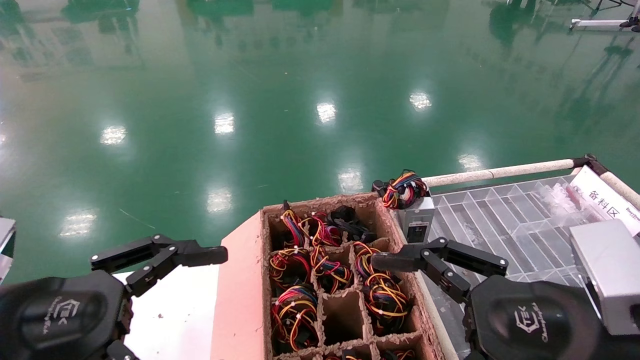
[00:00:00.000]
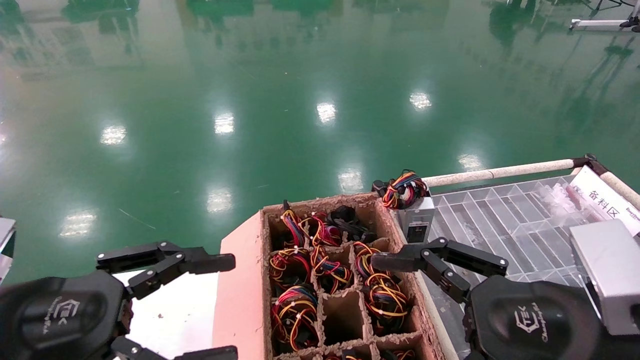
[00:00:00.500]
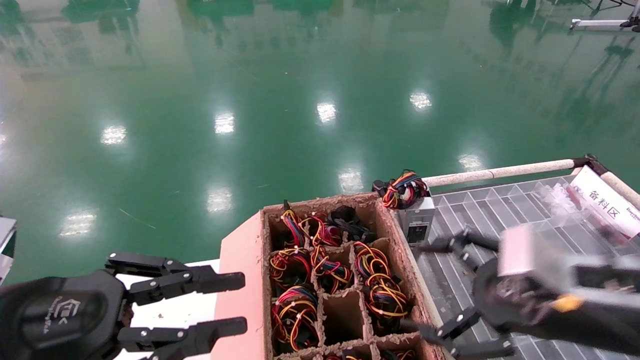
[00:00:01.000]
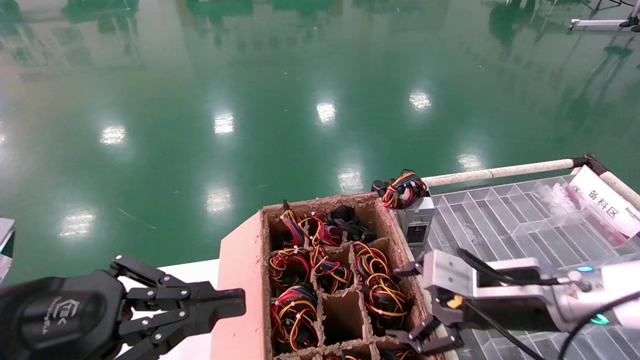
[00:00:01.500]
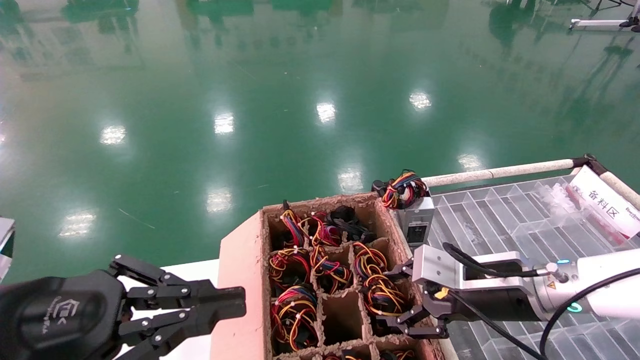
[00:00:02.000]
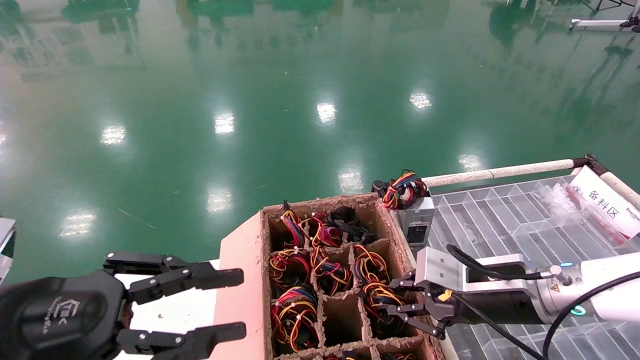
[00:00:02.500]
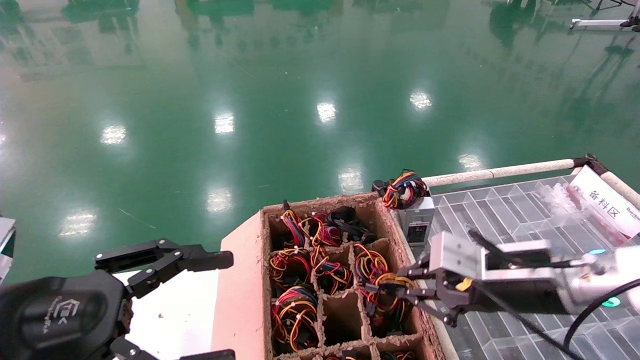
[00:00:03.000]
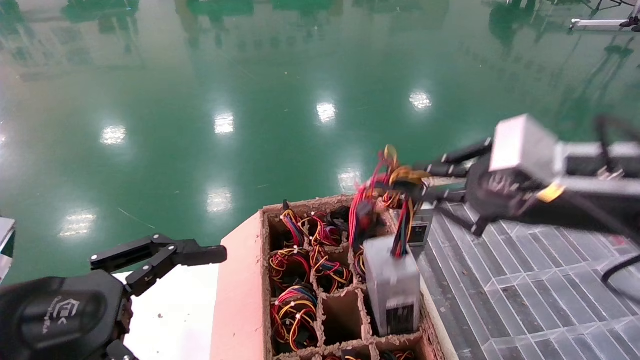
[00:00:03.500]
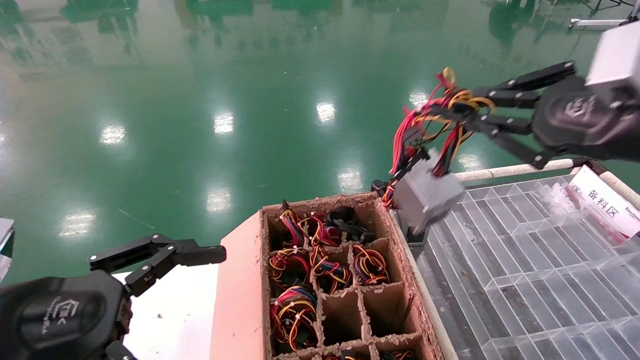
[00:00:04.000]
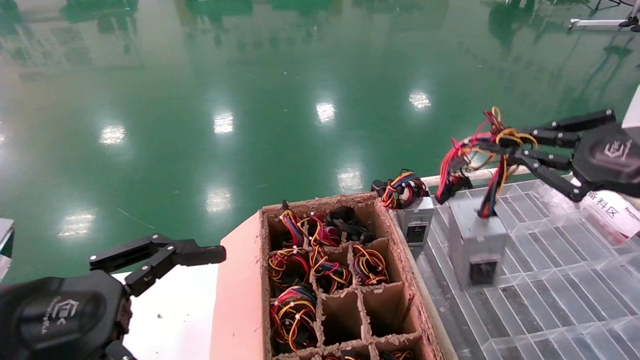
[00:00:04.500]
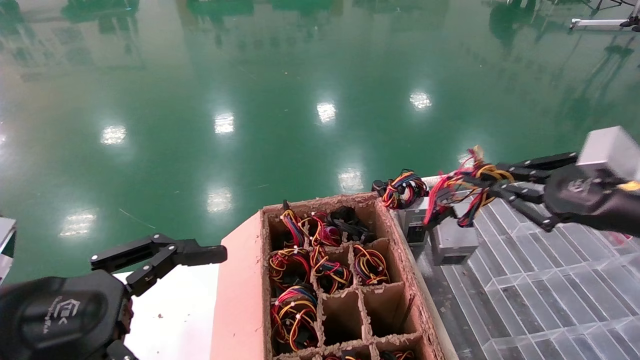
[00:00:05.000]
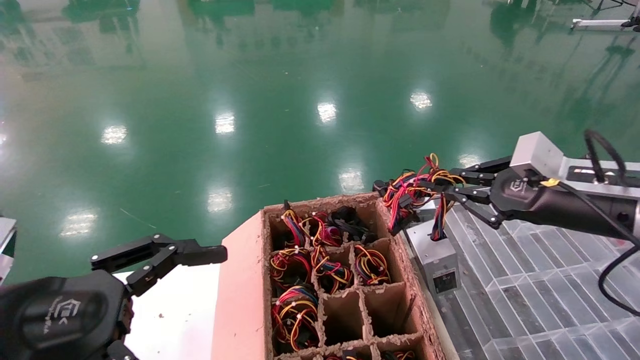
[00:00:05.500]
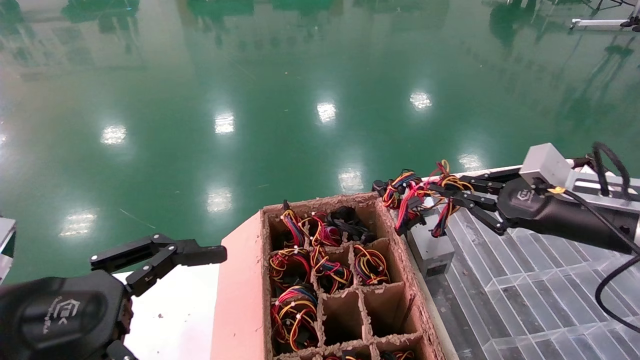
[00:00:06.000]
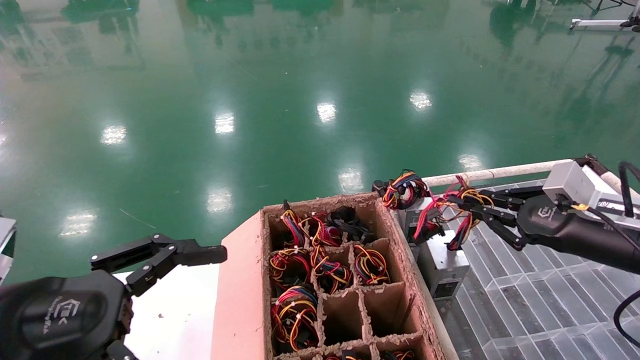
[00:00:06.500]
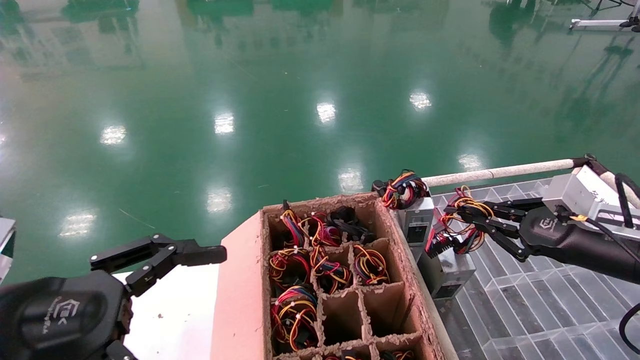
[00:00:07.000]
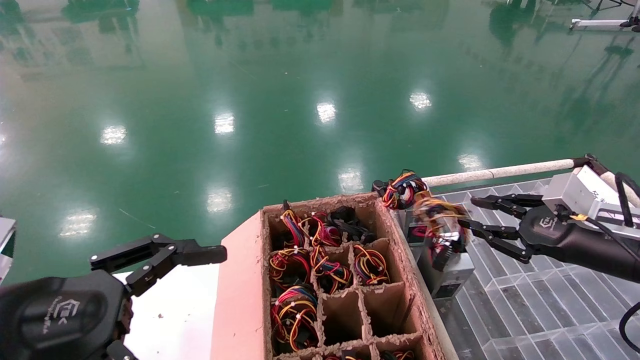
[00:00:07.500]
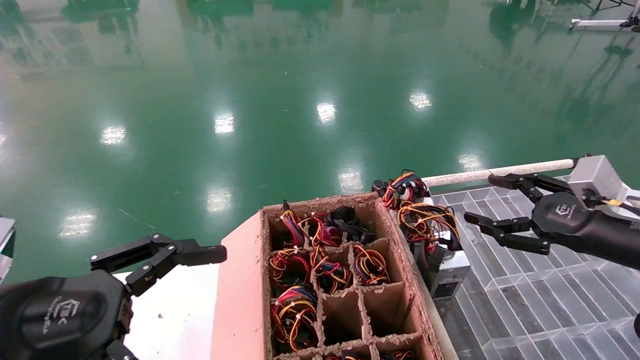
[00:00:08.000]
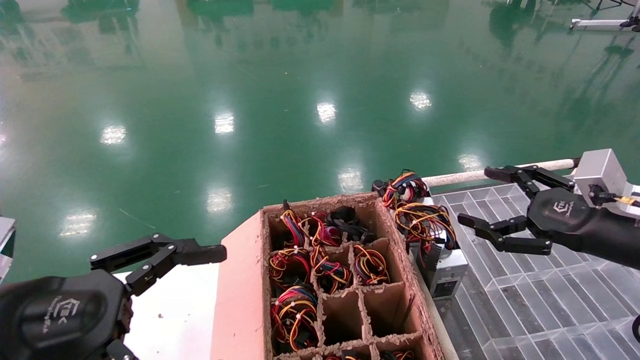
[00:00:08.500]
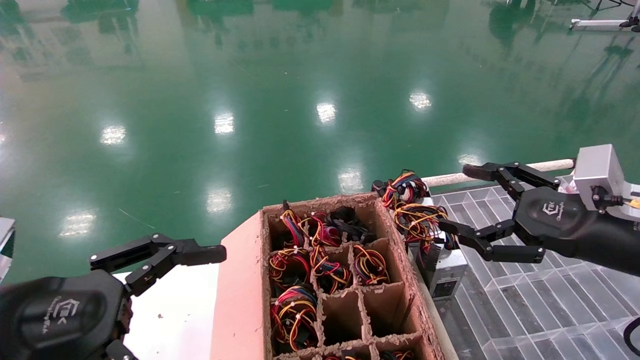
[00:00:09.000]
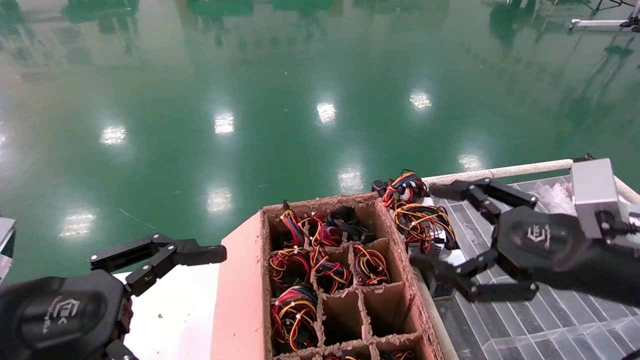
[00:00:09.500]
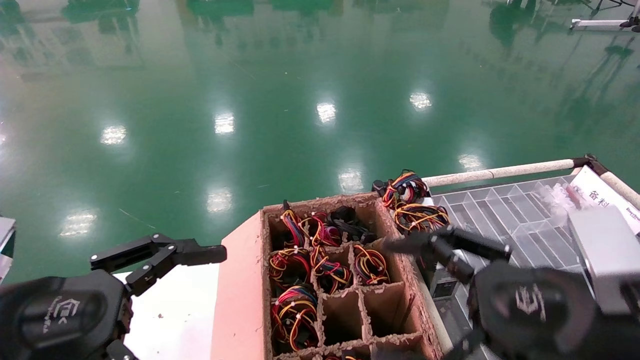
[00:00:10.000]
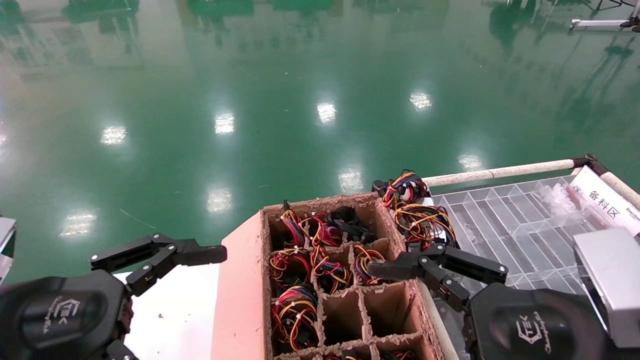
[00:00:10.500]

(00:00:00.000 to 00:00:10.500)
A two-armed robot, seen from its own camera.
Step, 00:00:02.000 - 00:00:03.000: Grab and lift the power supply from the large box.
Step, 00:00:03.500 - 00:00:07.000: Place the power supply on the operating table.
00:00:00.000 - 00:00:02.000: The right gripper travels forward by approximately 15 cm; the left gripper closes up.
00:00:02.000 - 00:00:04.000: The right gripper goes some 25 cm upward, backward and to the right, and closes up. The left gripper opens up.
00:00:04.000 - 00:00:06.500: The right gripper heads downward, forward and to the right, covering some 20 cm.
00:00:06.500 - 00:00:08.500: The right gripper opens.
00:00:08.500 - 00:00:10.500: The right gripper goes approximately 20 cm to the left and backward.
